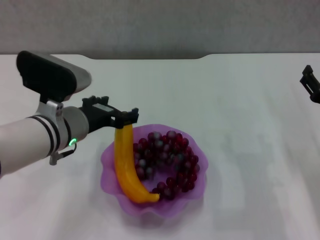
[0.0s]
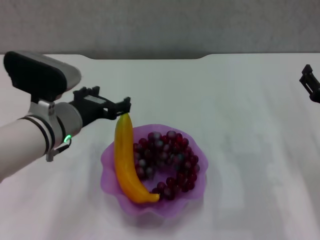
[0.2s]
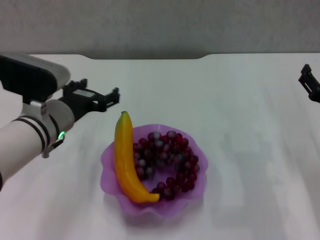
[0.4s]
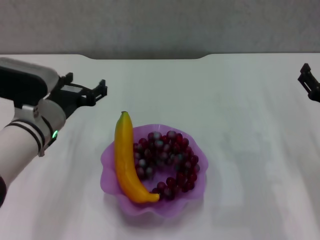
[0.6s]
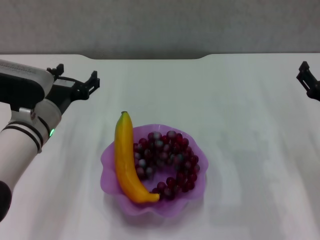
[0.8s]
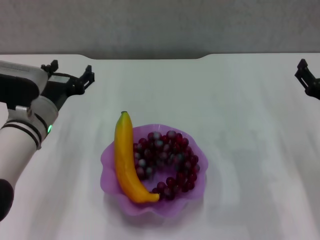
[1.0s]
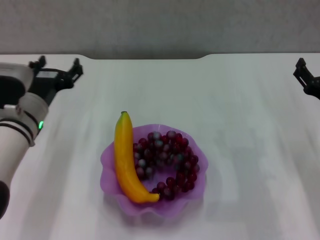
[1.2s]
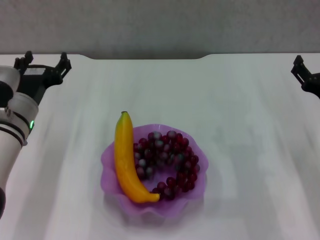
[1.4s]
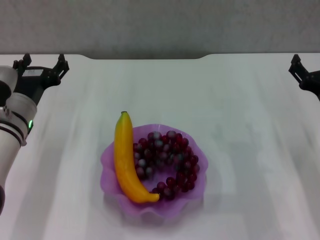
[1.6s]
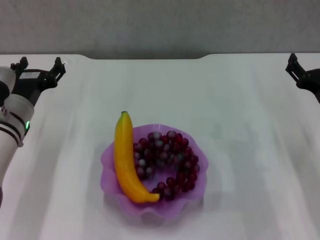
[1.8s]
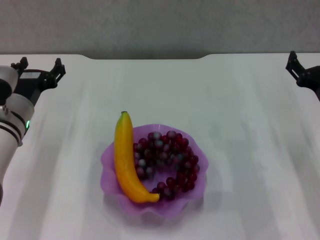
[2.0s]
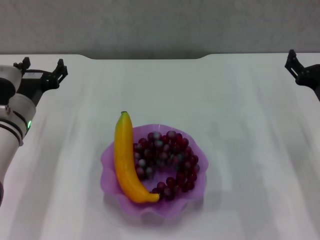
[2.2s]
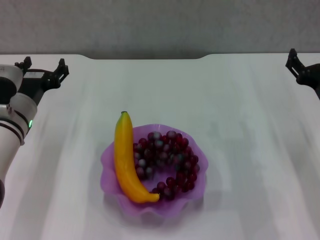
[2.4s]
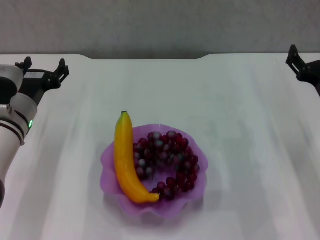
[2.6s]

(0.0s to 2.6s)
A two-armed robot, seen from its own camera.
0.0s - 1.2s: The left gripper shifts some 5 cm to the left.
1.2s - 2.6s: The grippers move only a little.

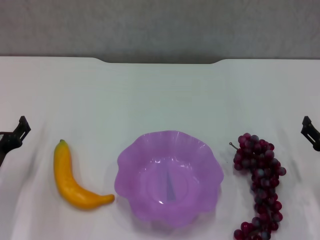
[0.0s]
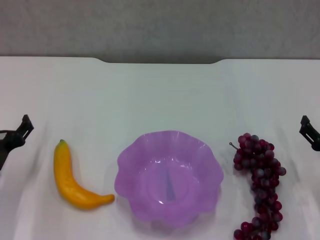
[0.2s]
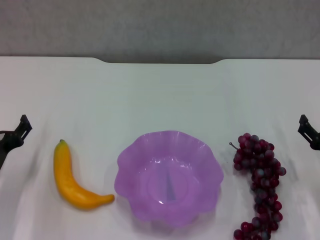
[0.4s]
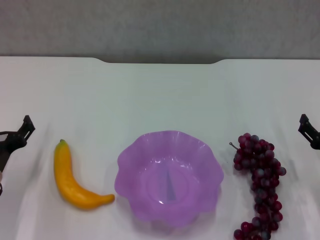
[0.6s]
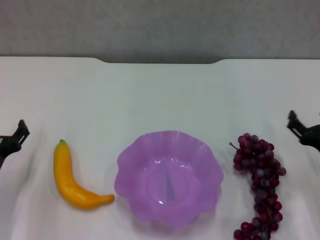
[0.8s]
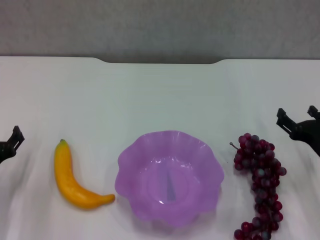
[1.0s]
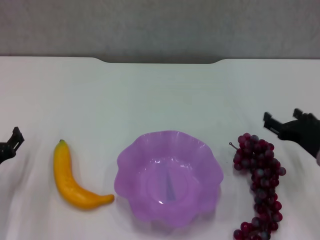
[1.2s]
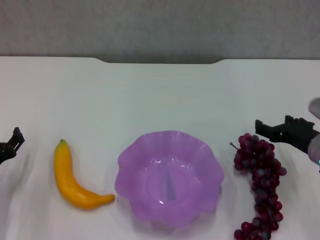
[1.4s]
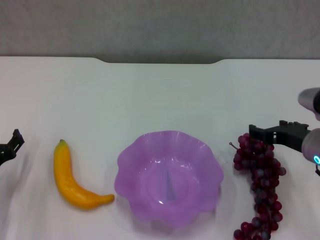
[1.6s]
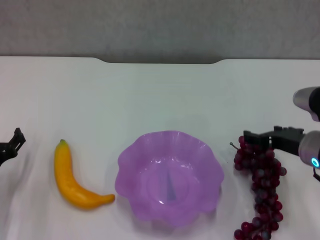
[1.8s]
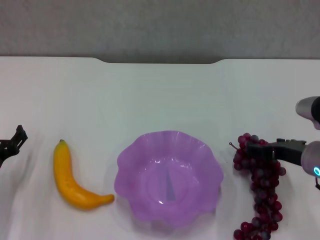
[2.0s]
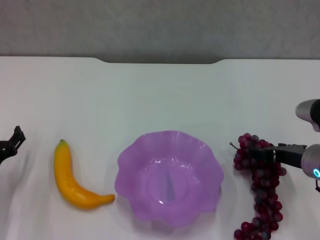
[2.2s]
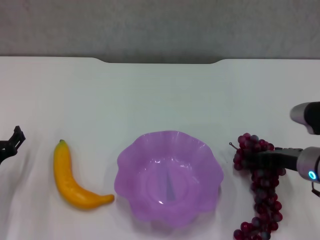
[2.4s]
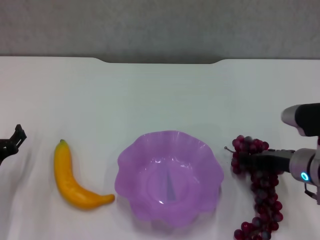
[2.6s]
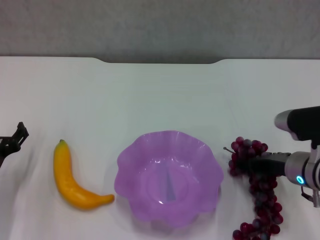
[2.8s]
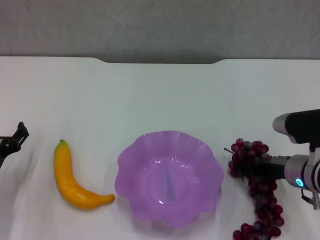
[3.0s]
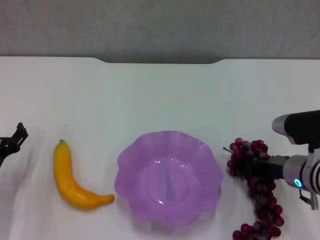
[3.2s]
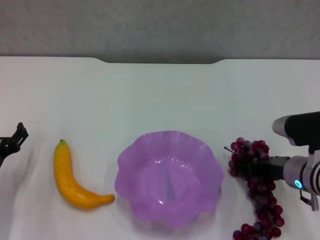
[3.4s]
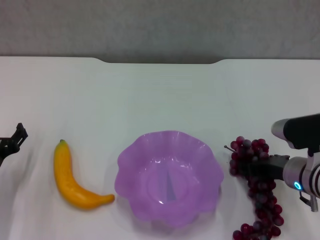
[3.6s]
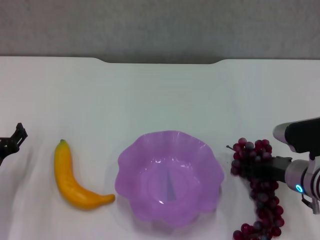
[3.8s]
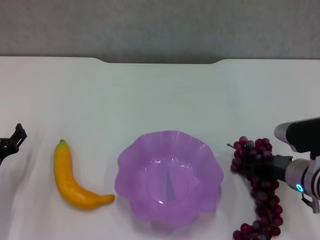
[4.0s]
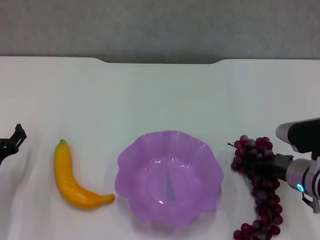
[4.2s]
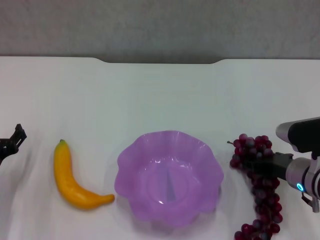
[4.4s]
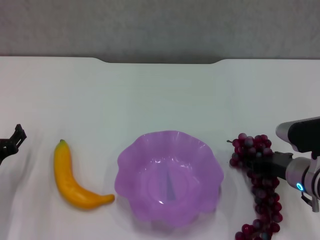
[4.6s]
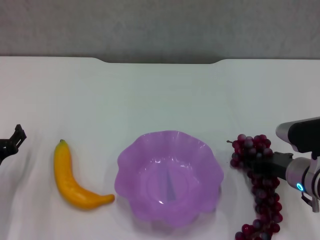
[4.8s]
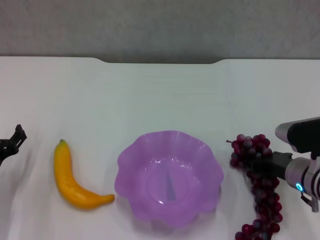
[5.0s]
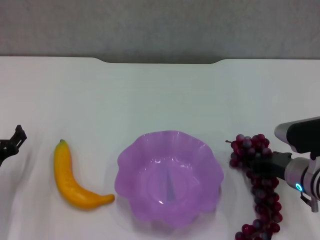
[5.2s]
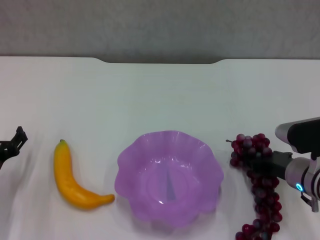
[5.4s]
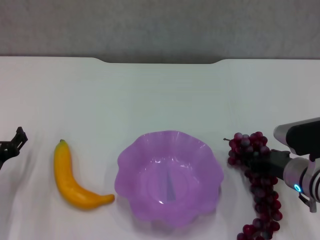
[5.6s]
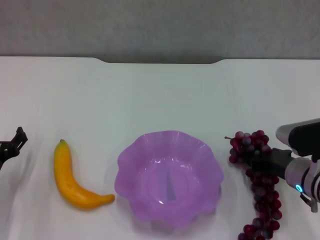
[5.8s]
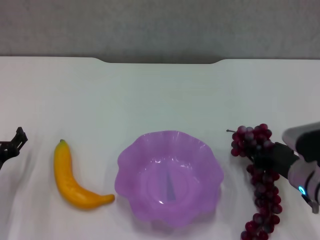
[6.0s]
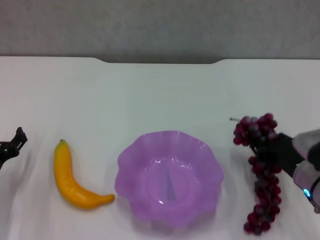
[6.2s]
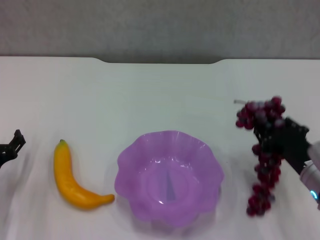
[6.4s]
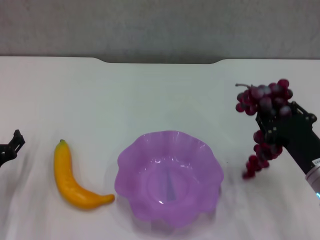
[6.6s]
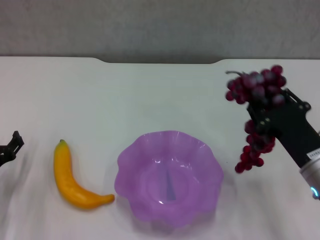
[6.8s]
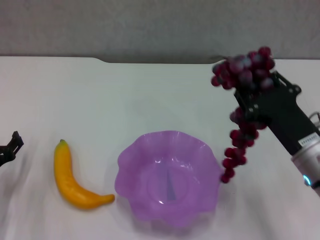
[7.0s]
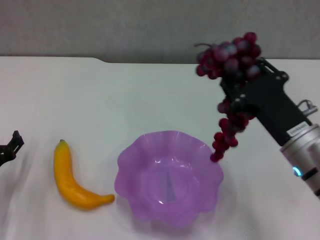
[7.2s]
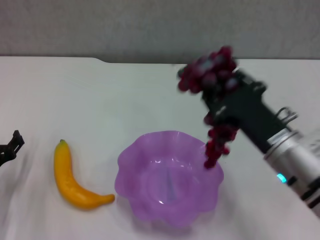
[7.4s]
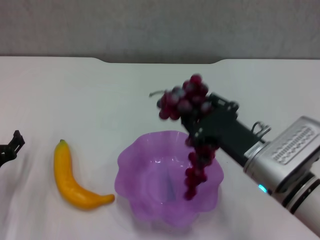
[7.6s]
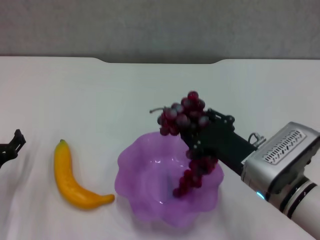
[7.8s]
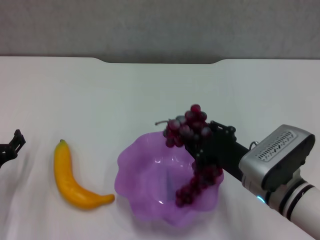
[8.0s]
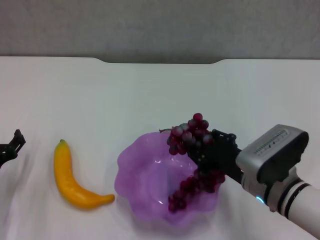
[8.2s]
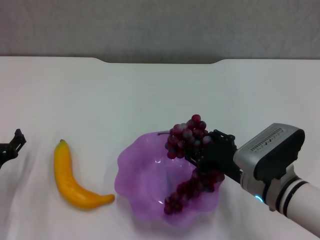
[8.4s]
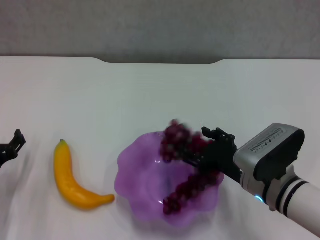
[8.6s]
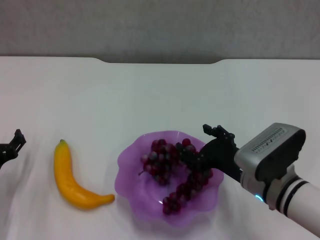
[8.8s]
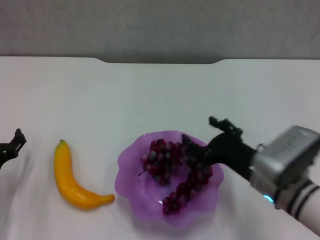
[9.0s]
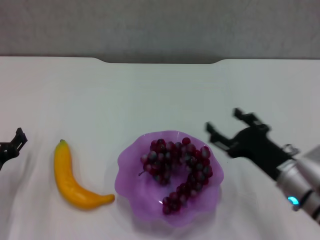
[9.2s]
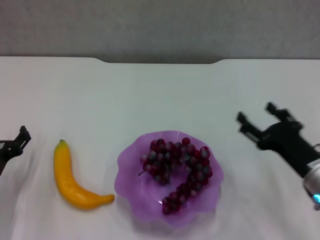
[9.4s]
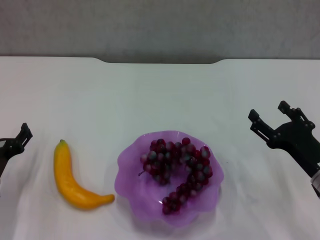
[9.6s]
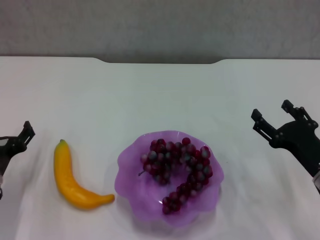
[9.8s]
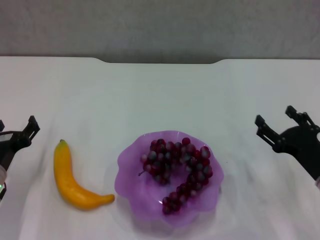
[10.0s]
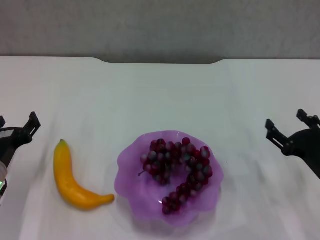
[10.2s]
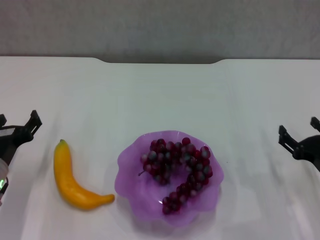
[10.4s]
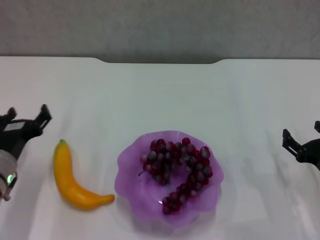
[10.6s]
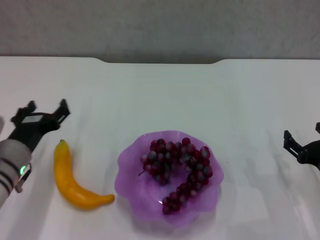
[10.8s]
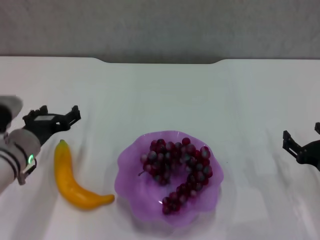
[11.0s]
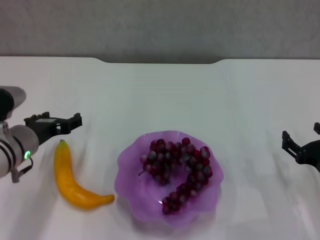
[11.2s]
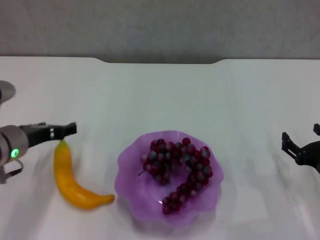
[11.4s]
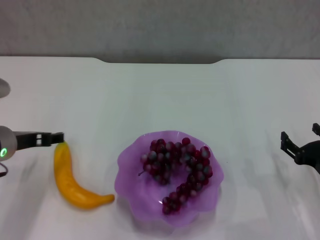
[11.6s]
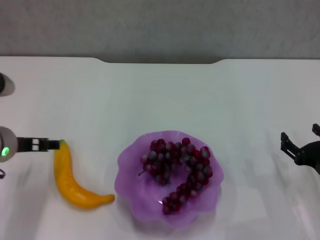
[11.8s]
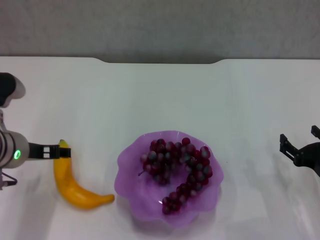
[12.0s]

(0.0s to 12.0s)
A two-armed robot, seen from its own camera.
Step, 0.0s - 3.6s: Grasp the grape with right gripper.
Step, 3.8s - 9.2s: Place the grape in the purple plate with right gripper.
0.0s - 1.6s: The right gripper goes approximately 10 cm upward and to the left.
1.6s - 3.0s: There are only small adjustments of the grippers.
3.0s - 4.4s: The right gripper closes up.
4.4s - 6.0s: The grippers stay close to where they were, moving slightly.
6.0s - 7.6s: The right gripper travels to the left and upward by about 10 cm.
7.6s - 9.0s: The right gripper opens.
9.0s - 10.4s: The right gripper travels to the right by roughly 10 cm.
10.4s - 12.0s: The left gripper moves upward, roughly 10 cm.

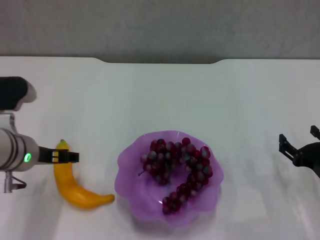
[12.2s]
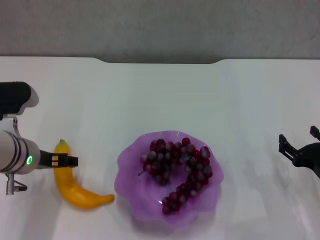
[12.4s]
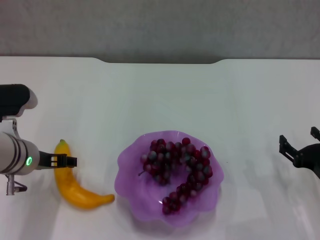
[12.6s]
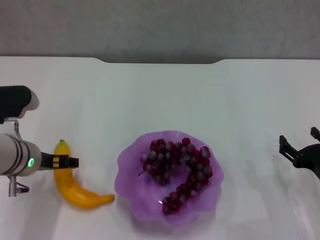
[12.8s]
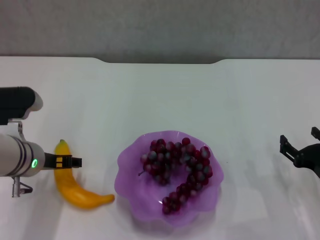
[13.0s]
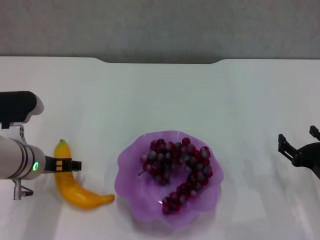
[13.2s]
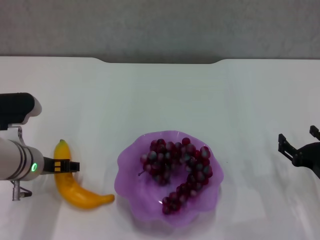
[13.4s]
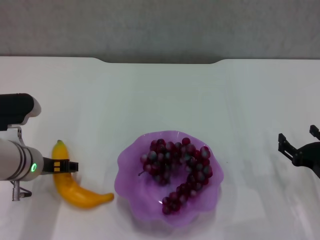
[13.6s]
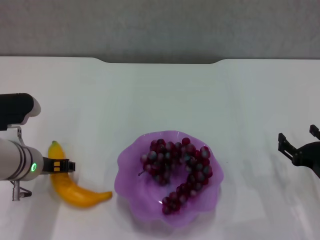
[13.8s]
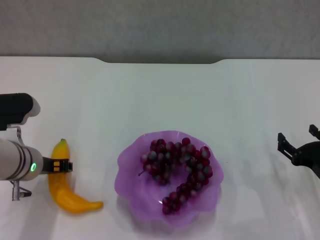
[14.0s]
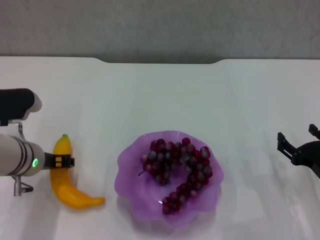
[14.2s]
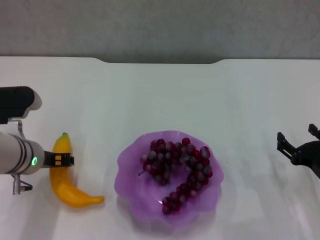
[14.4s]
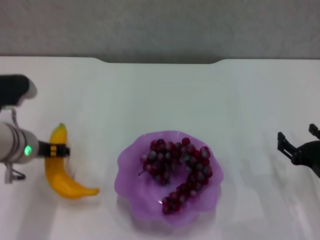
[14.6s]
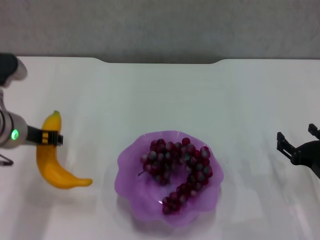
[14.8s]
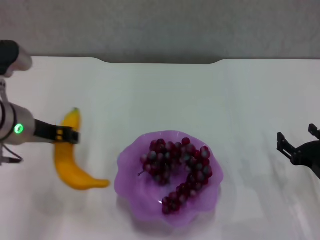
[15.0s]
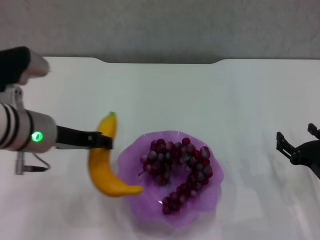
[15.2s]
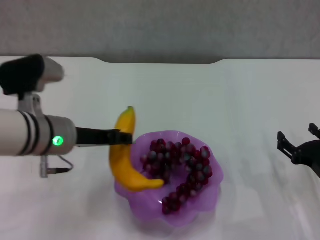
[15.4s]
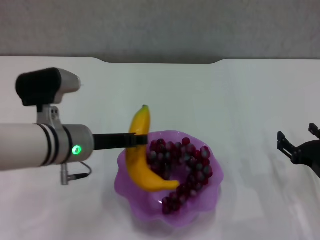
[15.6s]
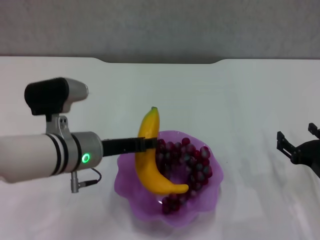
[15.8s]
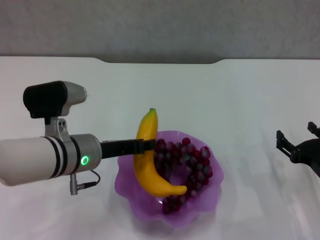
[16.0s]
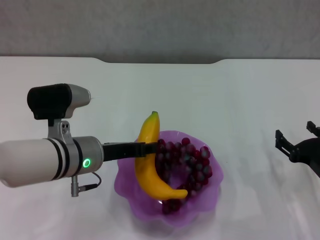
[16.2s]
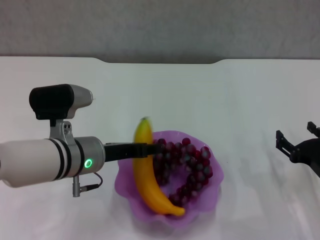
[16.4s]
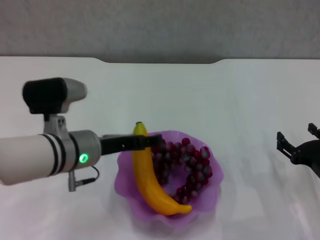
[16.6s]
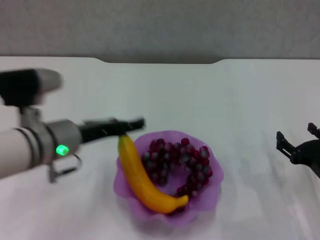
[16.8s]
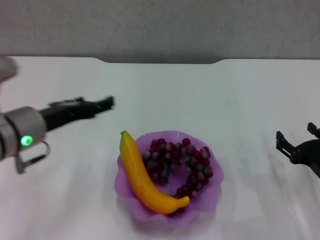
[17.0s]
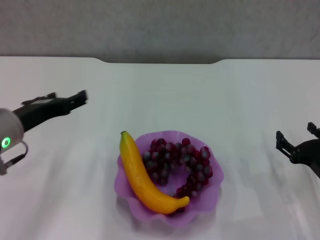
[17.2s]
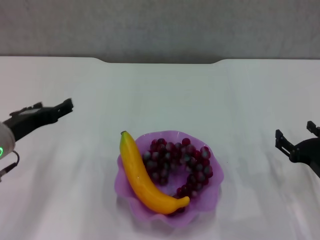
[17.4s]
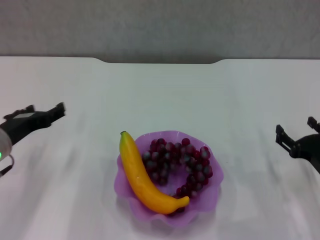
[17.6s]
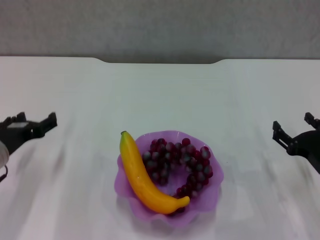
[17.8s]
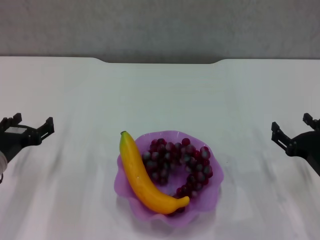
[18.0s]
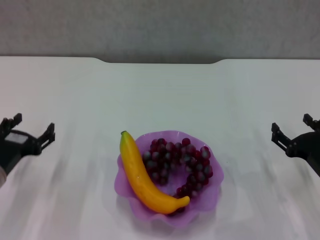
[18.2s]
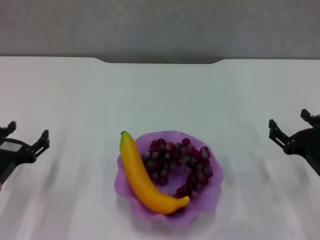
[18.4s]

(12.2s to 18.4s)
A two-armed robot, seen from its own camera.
Step, 14.2s - 16.8s: Place the banana in the purple plate with left gripper.
12.2s - 13.8s: There are only small adjustments of the grippers.
13.8s - 15.4s: The left gripper goes approximately 5 cm upward, and closes its fingers.
15.4s - 16.8s: The left gripper opens.
16.8s - 18.4s: The left gripper is displaced to the left and downward by approximately 15 cm.

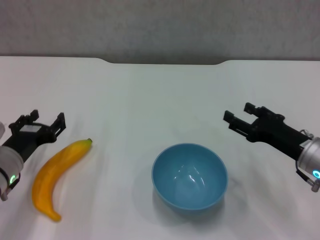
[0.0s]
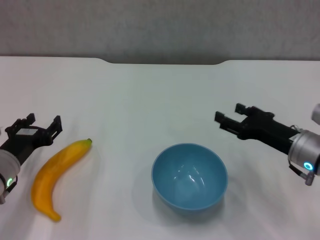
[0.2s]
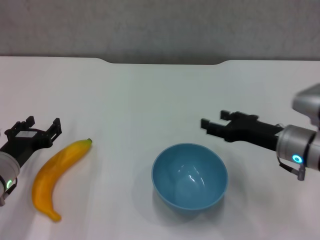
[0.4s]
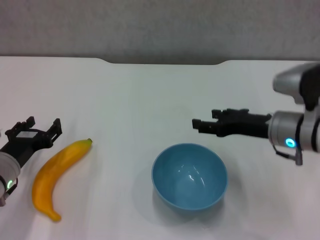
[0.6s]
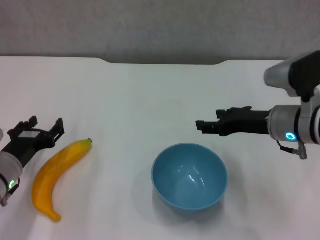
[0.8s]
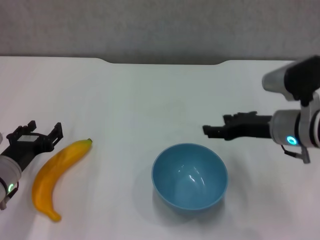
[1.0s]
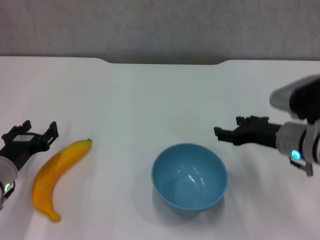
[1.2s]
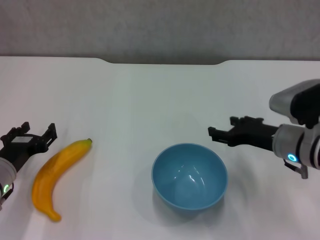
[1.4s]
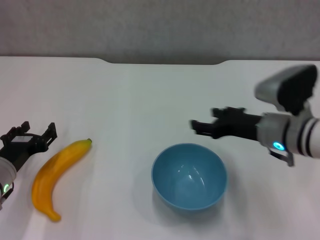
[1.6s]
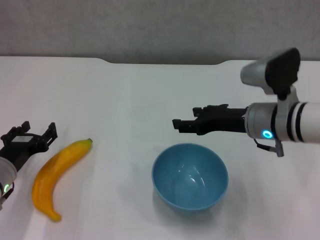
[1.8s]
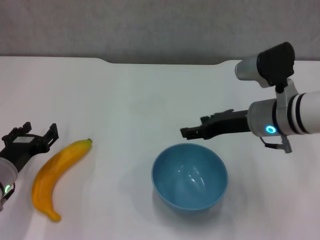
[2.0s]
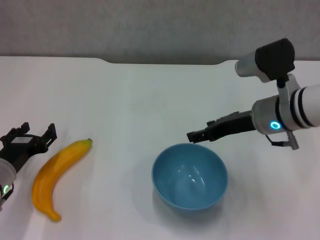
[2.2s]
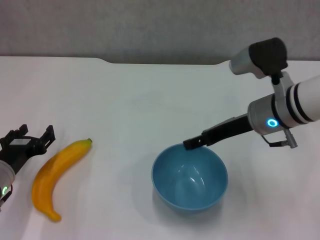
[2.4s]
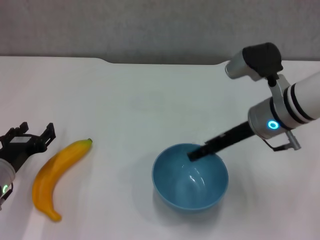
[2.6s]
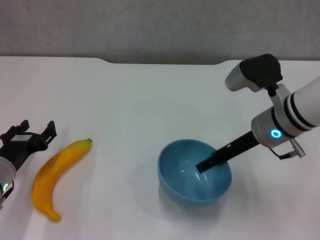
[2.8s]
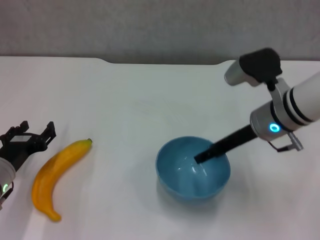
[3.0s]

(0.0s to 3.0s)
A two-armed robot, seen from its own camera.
0.0s - 1.6s: The right gripper moves to the left, some 5 cm.
